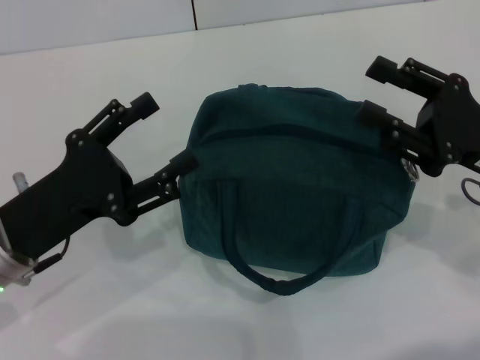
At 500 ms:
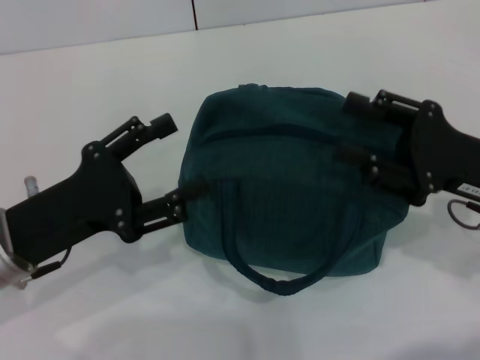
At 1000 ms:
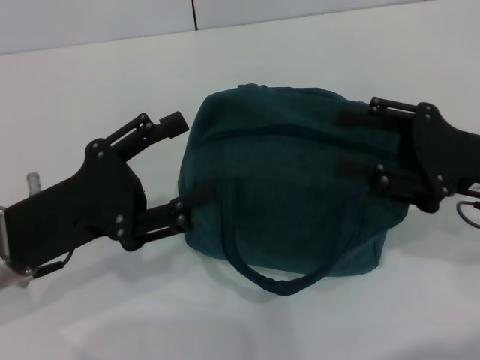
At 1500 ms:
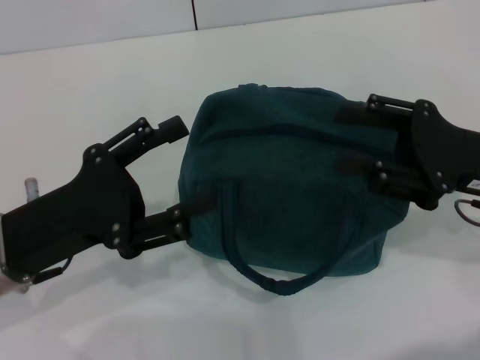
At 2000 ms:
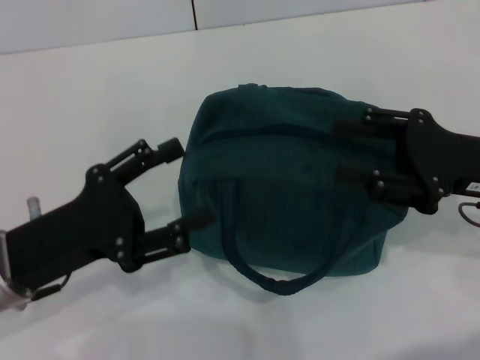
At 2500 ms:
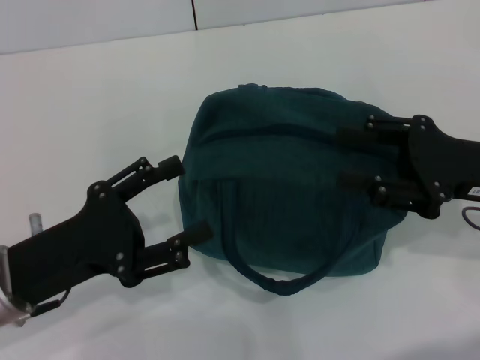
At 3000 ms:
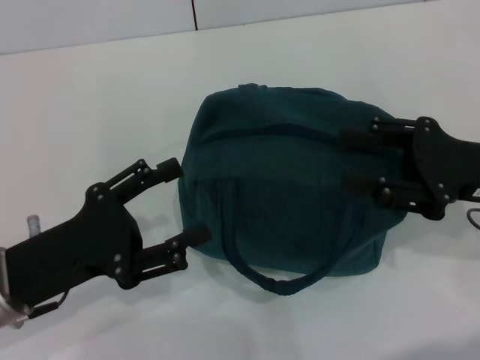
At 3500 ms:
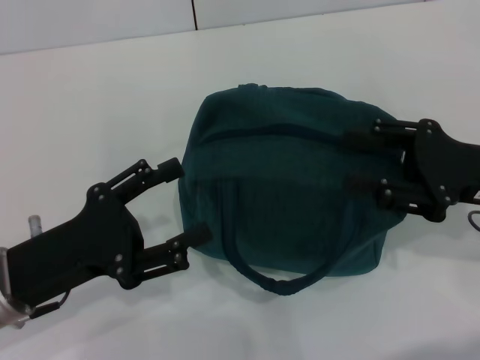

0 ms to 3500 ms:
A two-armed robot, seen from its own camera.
0 ms to 2000 ms: The grippers move only a little.
2000 ms to 3500 ms: Both grippers stay put.
